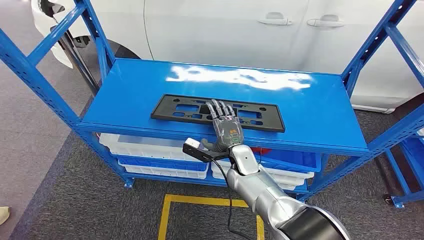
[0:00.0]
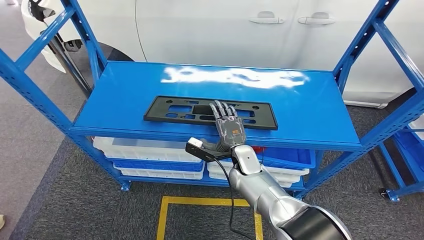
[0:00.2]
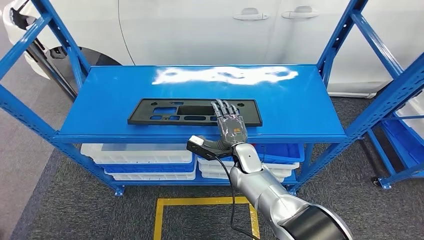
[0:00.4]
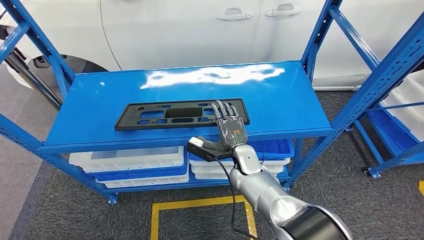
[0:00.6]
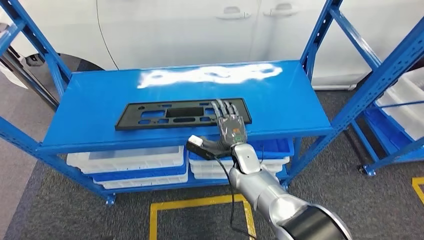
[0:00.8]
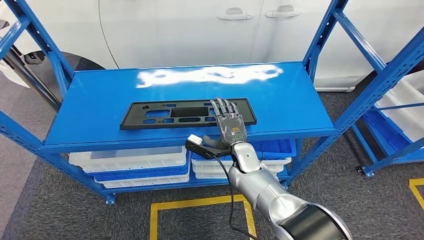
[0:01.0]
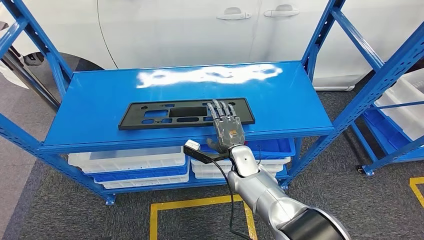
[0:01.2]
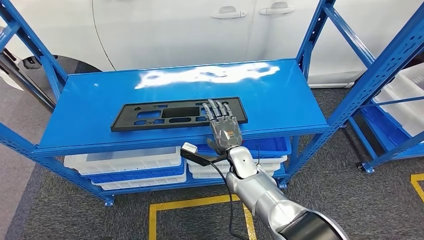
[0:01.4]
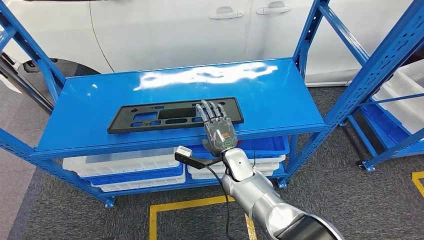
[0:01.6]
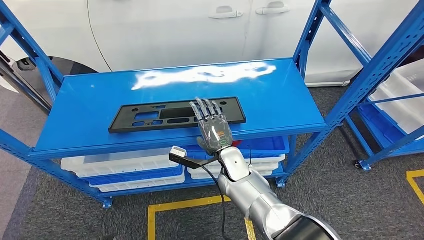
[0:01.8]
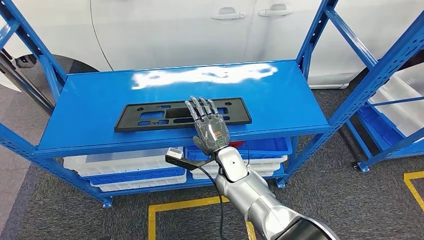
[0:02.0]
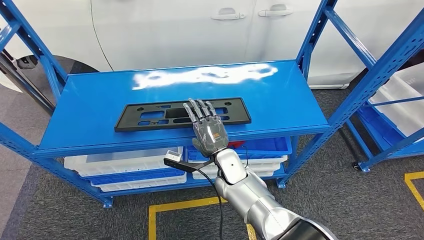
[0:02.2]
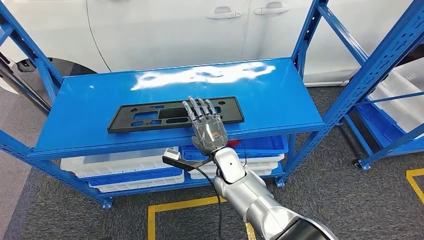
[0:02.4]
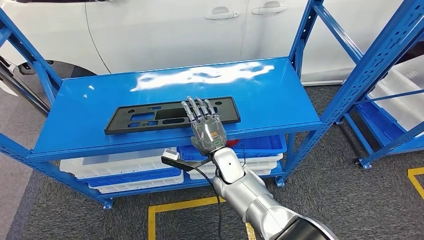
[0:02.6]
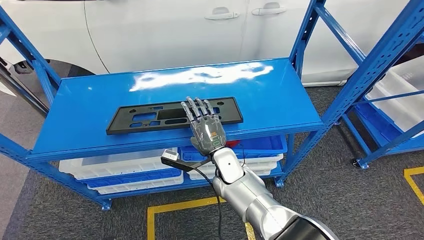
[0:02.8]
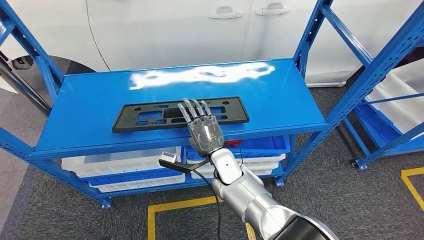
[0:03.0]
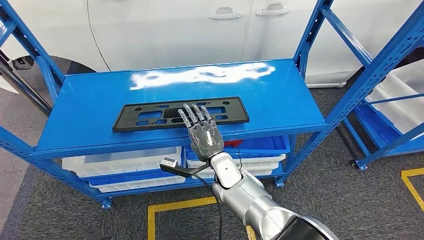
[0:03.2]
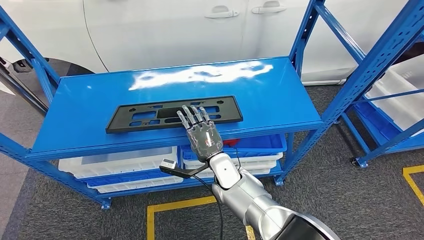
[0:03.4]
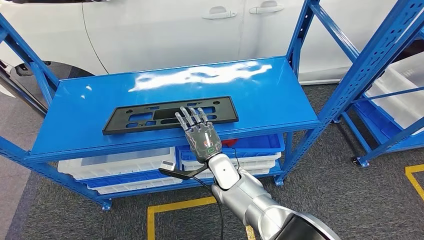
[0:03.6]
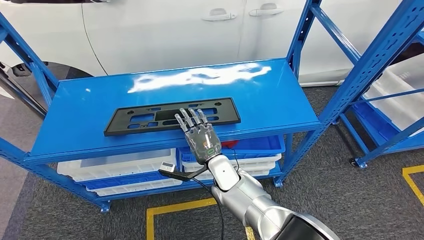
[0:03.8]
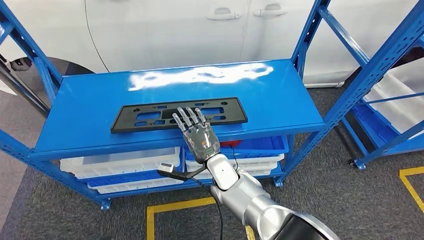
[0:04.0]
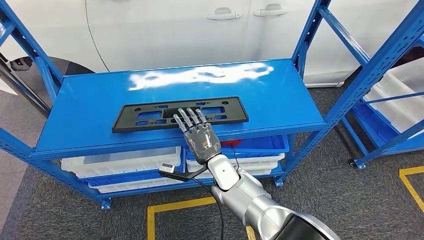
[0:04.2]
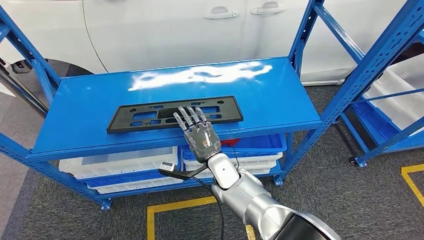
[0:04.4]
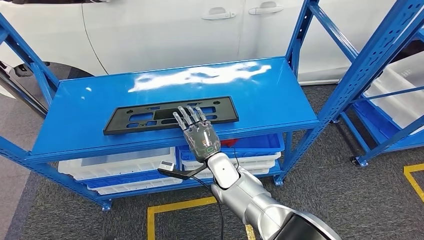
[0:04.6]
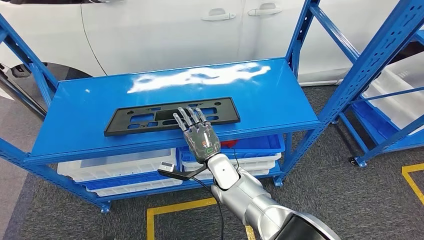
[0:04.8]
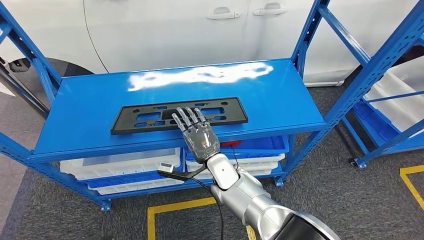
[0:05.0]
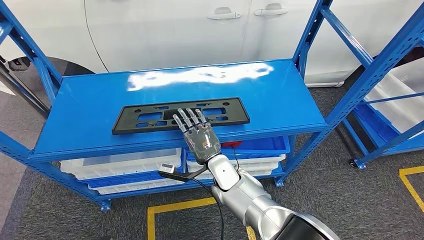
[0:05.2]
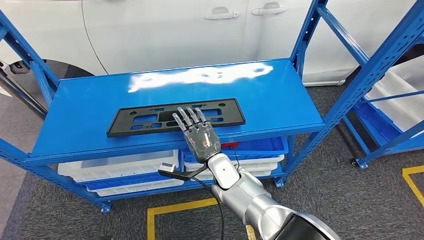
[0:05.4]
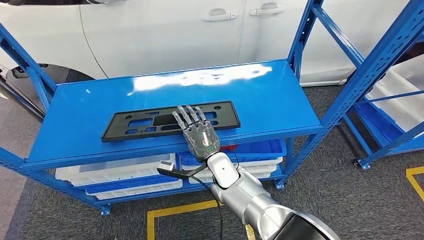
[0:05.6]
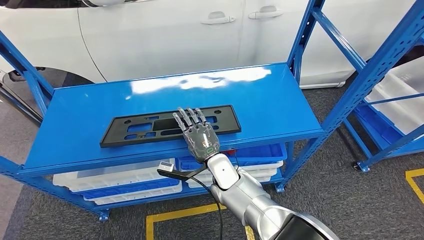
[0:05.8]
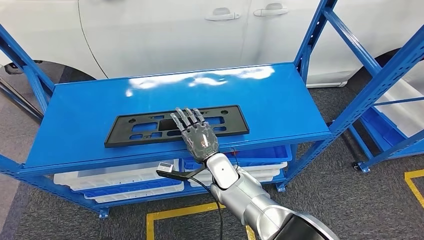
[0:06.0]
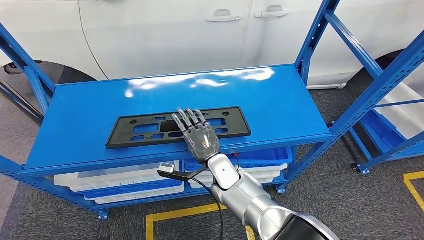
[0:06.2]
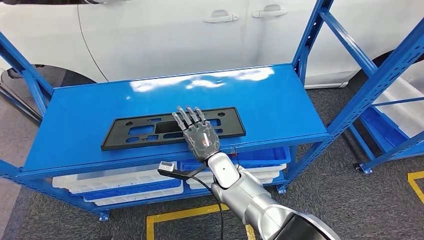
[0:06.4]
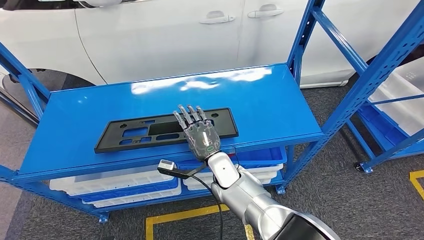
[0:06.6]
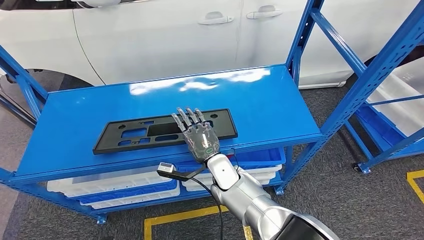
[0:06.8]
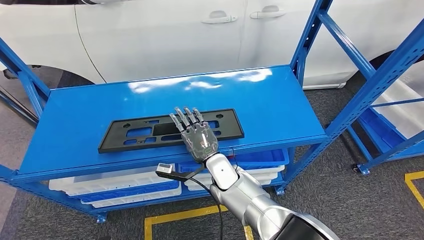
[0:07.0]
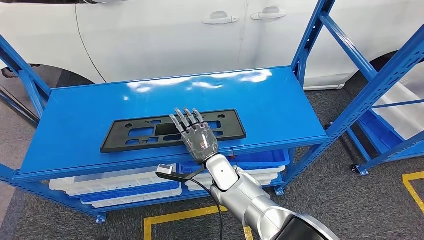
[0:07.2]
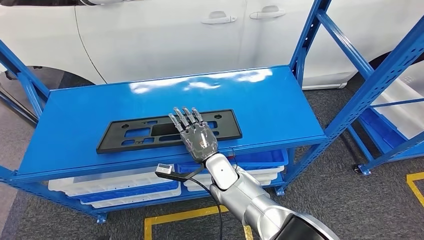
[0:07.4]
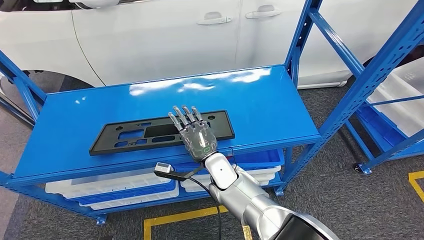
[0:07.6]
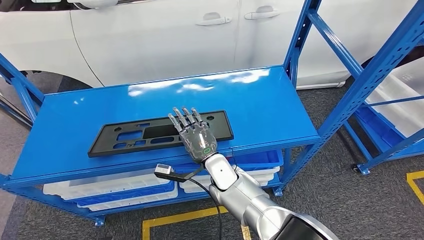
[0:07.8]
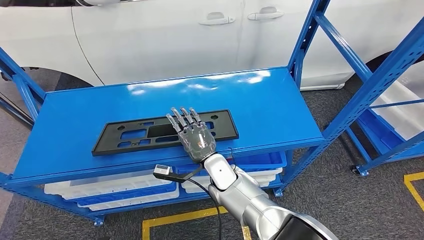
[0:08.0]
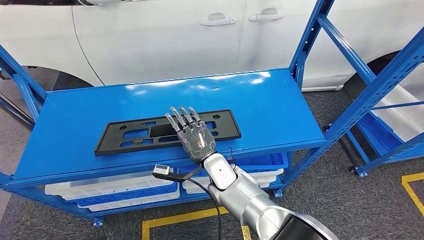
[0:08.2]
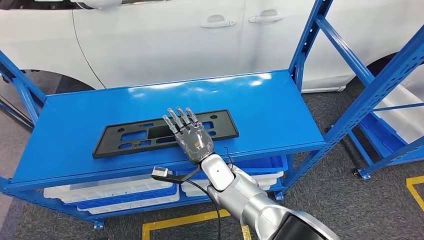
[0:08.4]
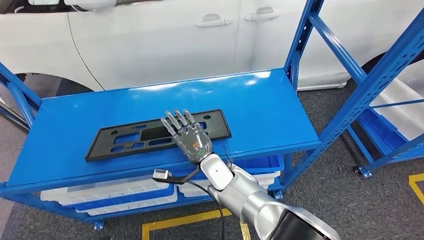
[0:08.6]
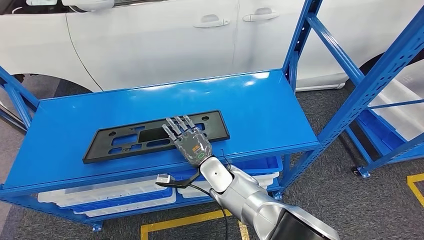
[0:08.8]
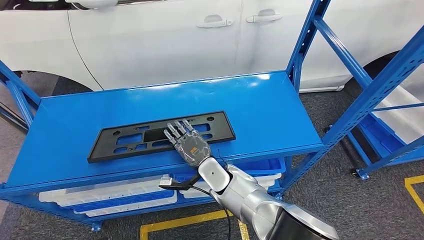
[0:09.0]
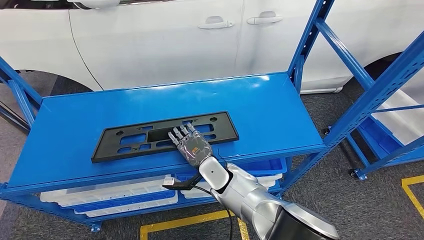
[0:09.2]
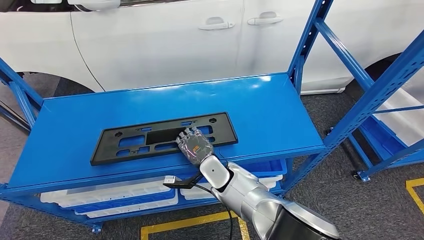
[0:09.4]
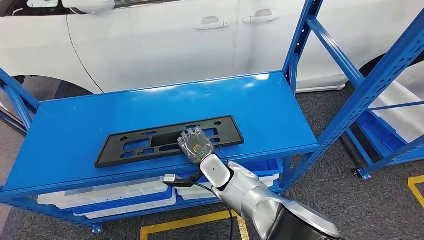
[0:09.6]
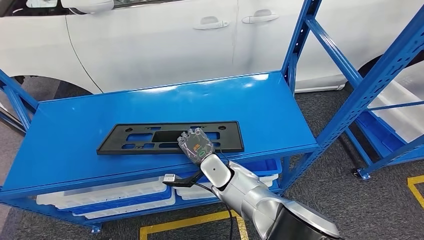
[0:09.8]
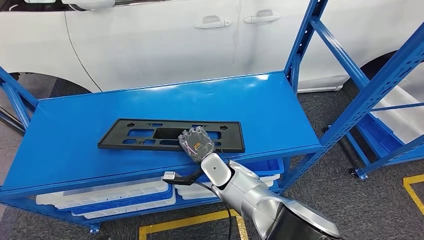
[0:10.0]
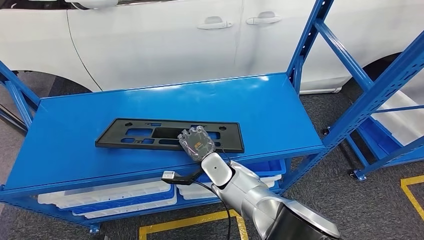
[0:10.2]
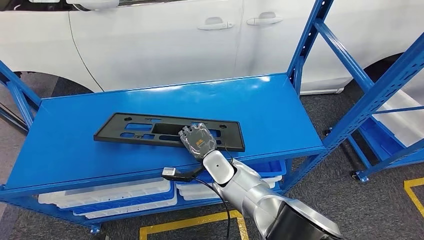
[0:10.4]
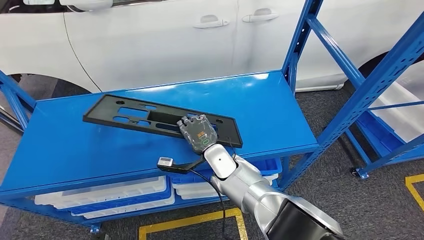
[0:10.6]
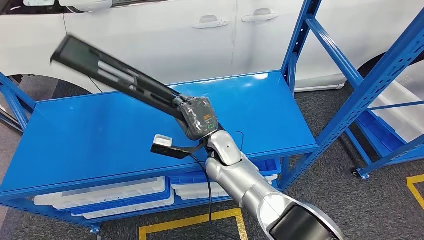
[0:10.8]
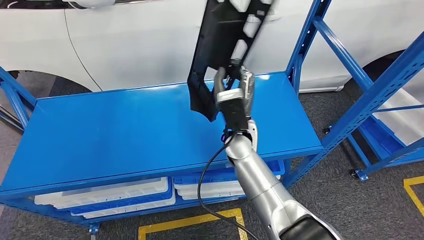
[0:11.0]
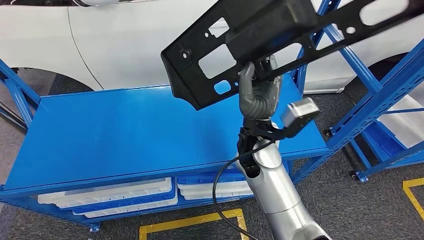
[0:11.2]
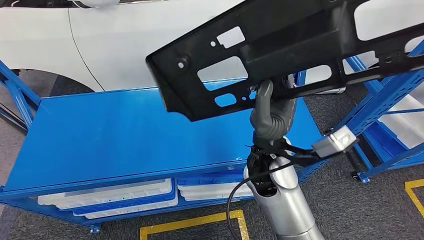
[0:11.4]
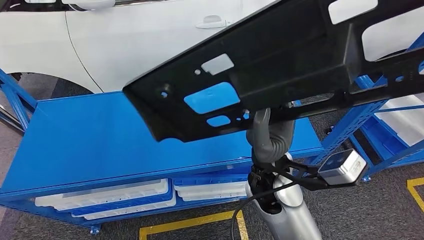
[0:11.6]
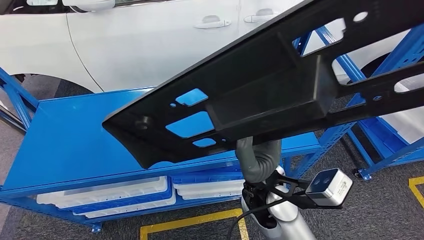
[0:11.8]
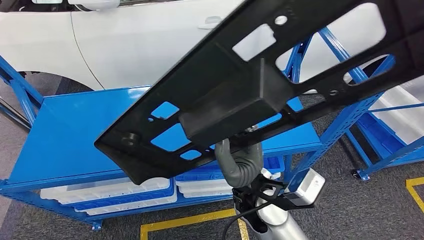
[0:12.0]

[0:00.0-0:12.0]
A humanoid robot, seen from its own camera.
0:01.6 to 0:04.4: The hands stay close to where they were, moving slightly.
0:09.0 to 0:10.4: The hands make only small movements.

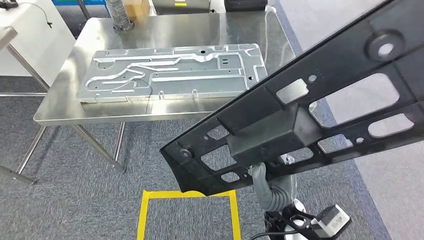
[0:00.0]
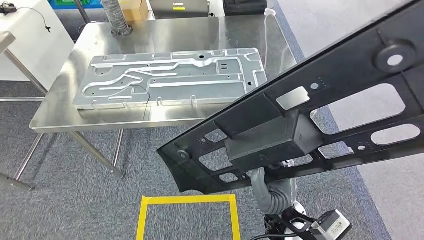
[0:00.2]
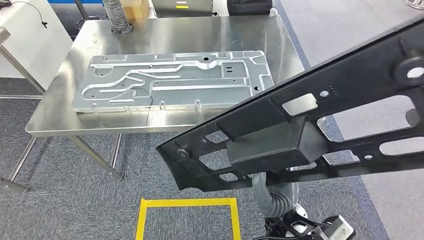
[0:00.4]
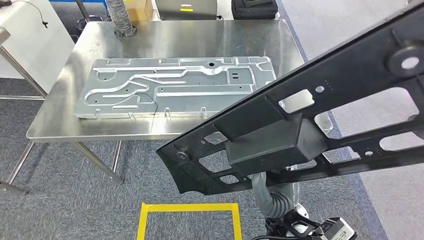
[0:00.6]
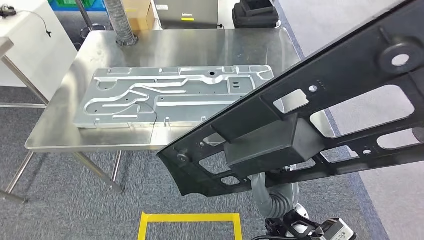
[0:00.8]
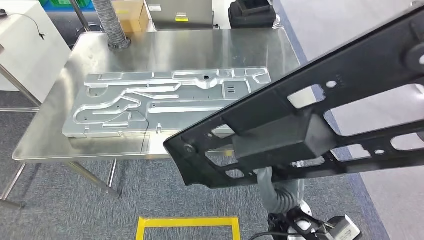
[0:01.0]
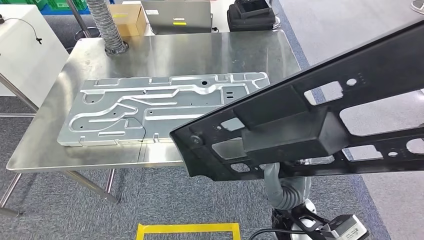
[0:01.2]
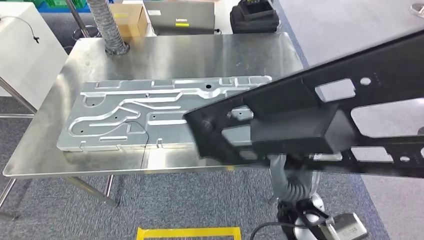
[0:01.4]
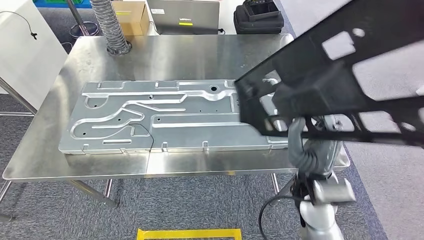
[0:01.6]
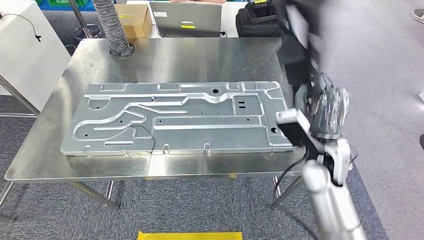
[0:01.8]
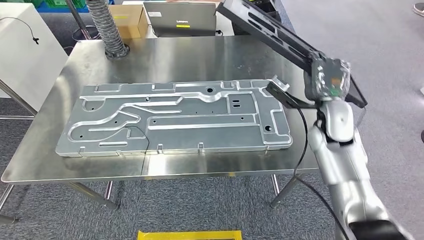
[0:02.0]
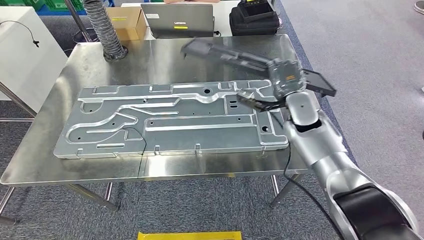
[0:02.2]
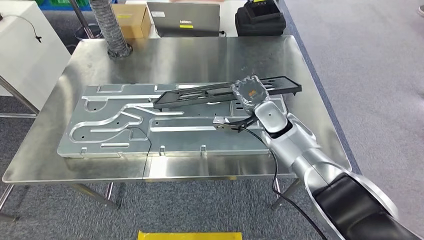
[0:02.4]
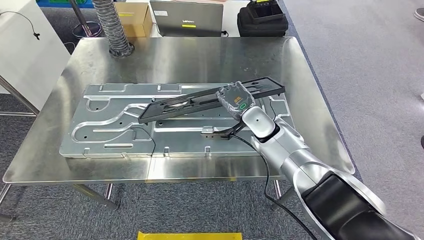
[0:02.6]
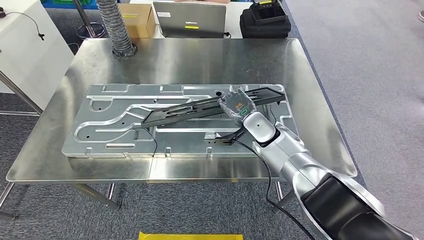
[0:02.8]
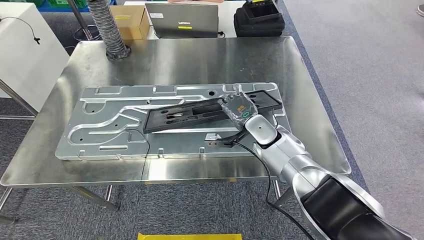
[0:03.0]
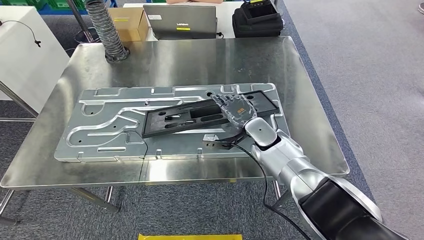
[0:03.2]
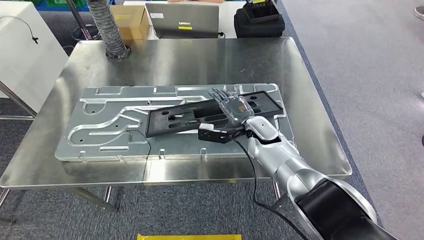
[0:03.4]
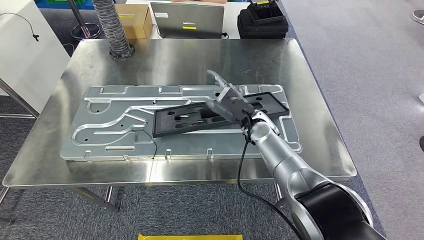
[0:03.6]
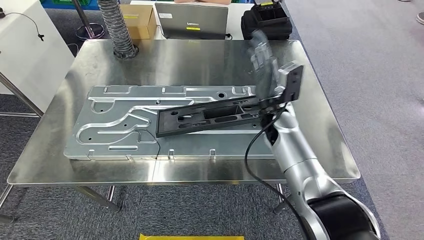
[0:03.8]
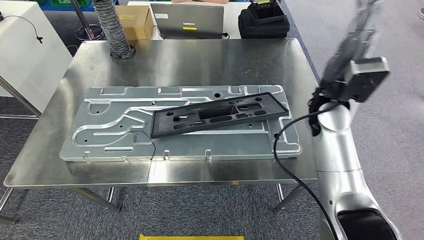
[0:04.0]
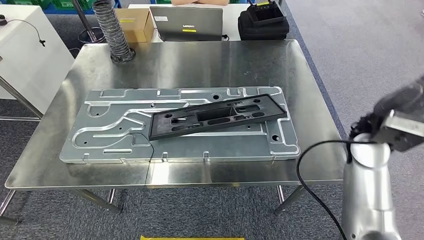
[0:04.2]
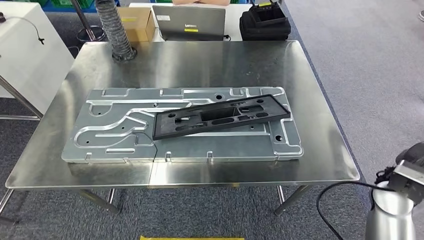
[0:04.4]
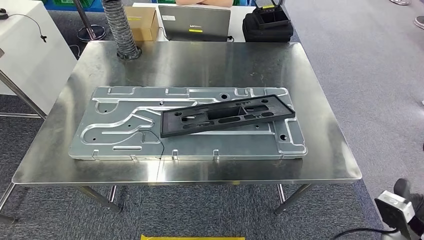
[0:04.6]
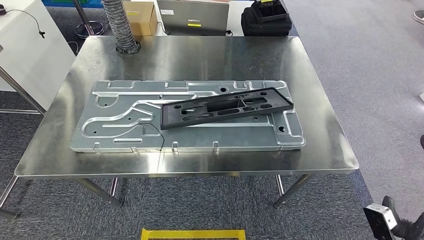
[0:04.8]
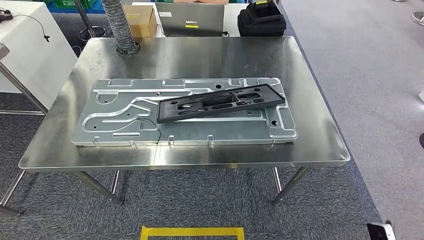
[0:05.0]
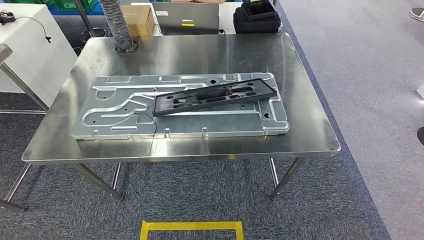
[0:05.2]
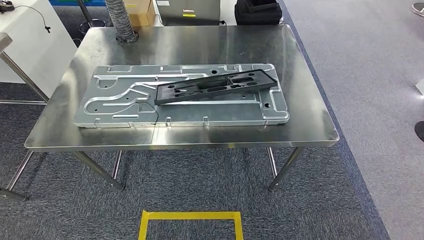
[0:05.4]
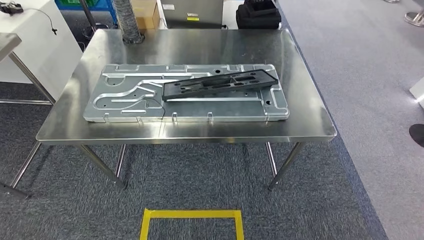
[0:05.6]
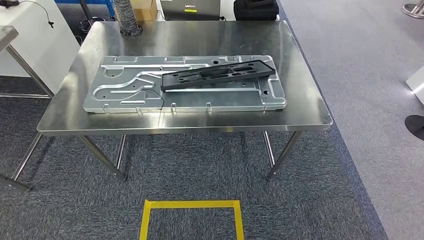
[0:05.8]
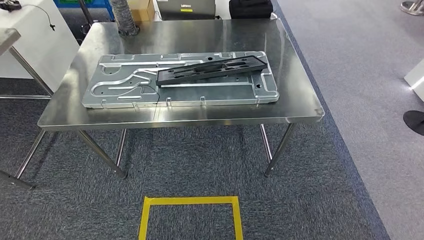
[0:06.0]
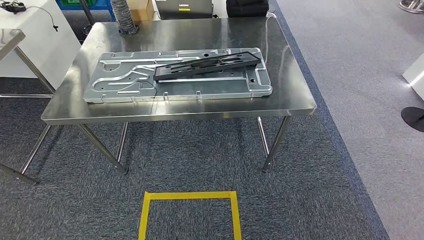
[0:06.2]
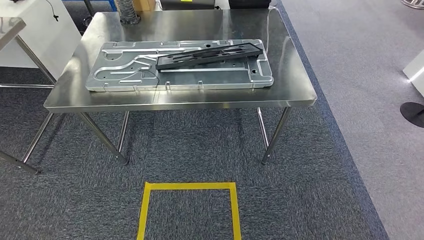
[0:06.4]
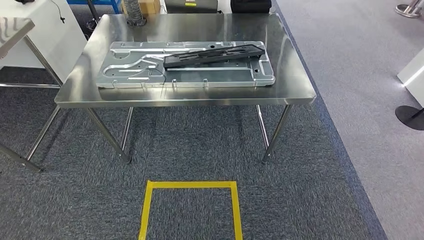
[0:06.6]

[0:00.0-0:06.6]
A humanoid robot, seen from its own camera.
Step, 0:00.0 to 0:02.6: Move the large material to the workbench.
Step, 0:02.8 to 0:05.0: Insert the large material into the corresponding slot on the workbench.
